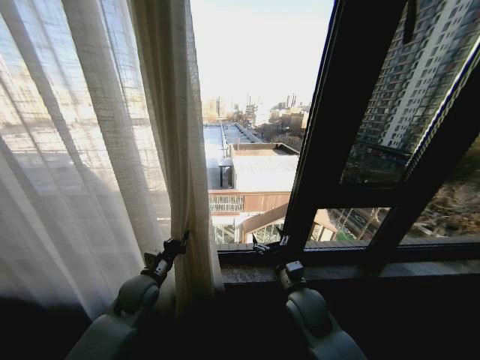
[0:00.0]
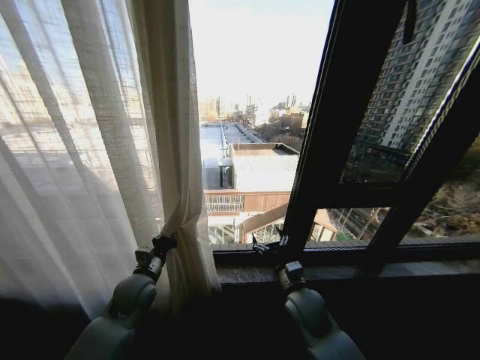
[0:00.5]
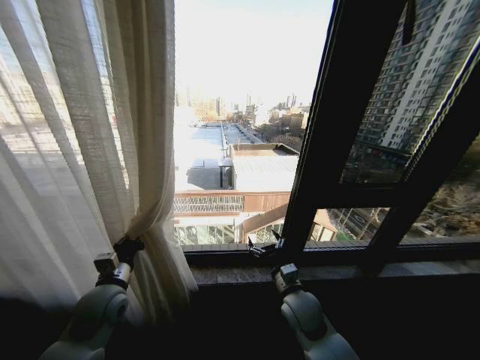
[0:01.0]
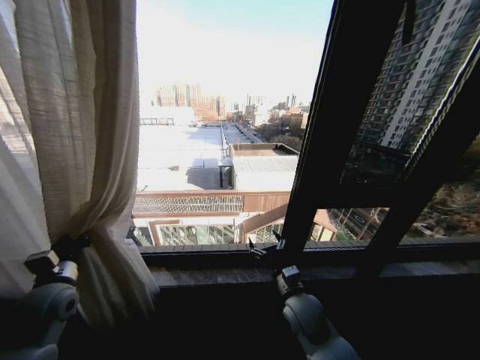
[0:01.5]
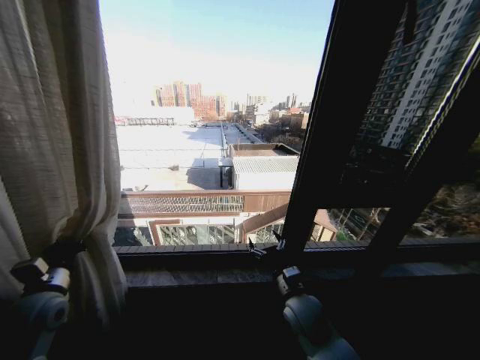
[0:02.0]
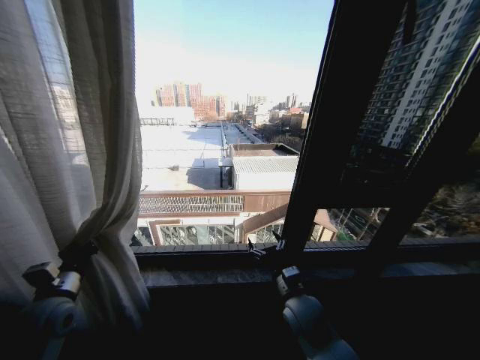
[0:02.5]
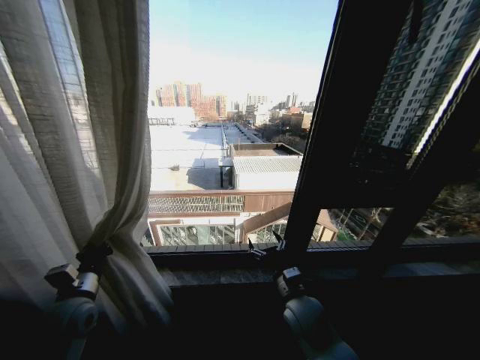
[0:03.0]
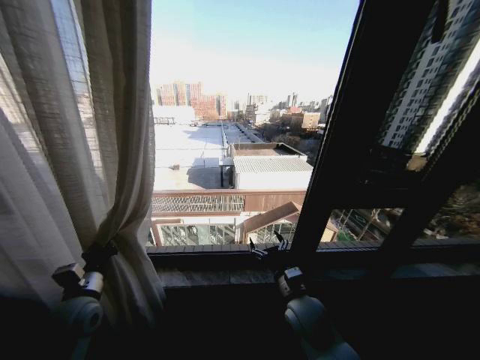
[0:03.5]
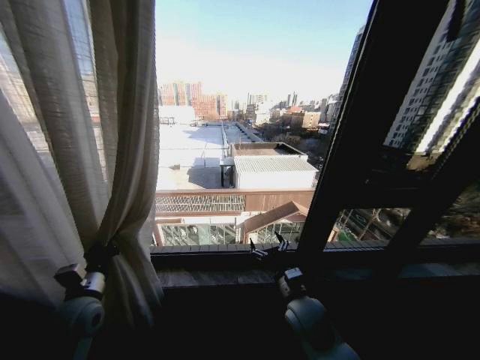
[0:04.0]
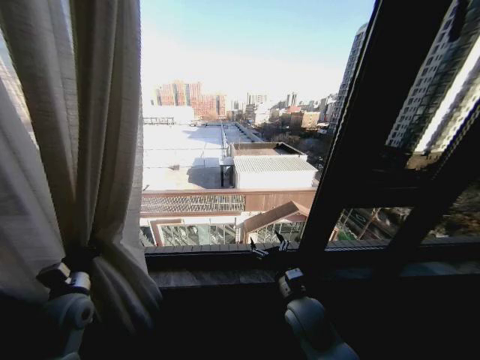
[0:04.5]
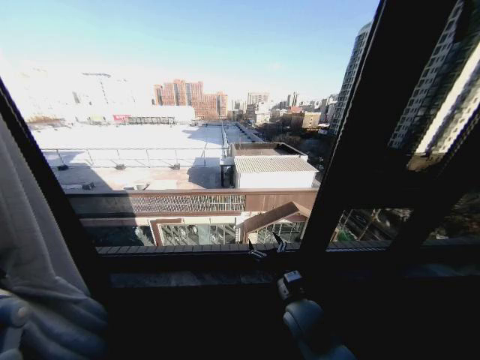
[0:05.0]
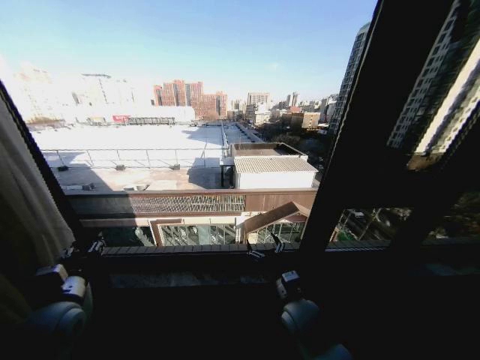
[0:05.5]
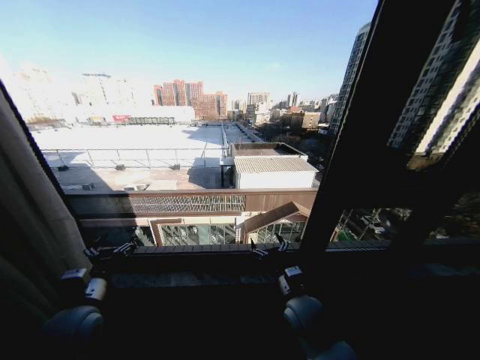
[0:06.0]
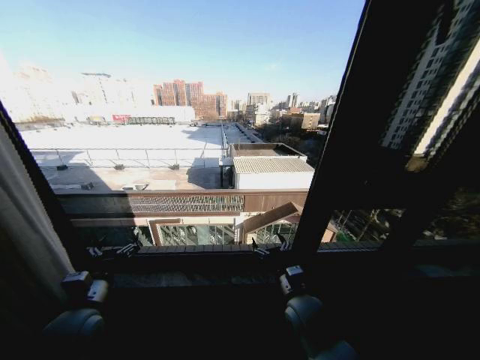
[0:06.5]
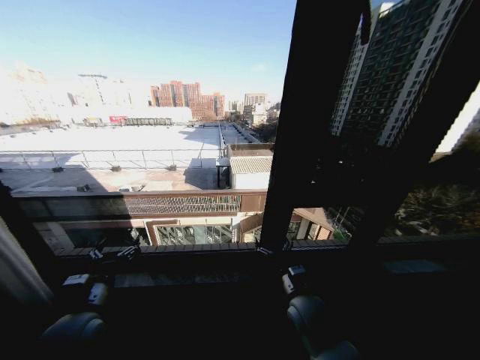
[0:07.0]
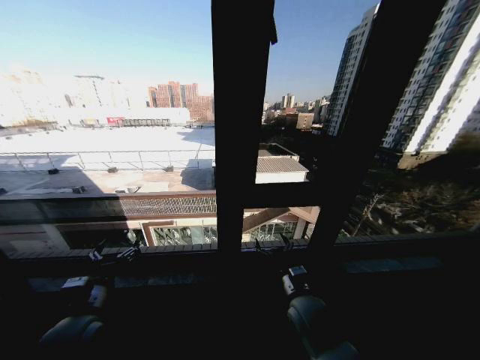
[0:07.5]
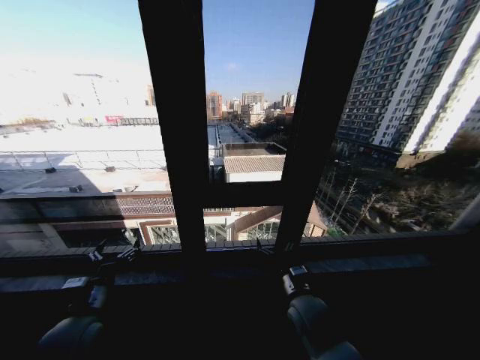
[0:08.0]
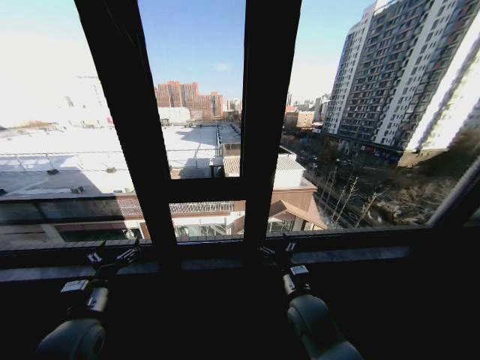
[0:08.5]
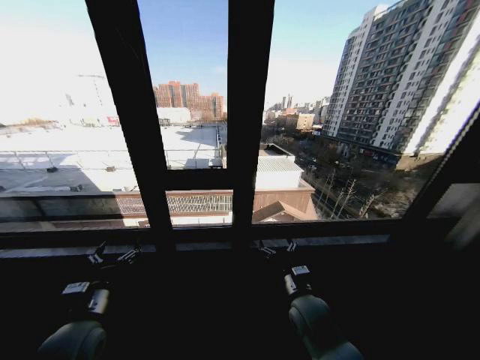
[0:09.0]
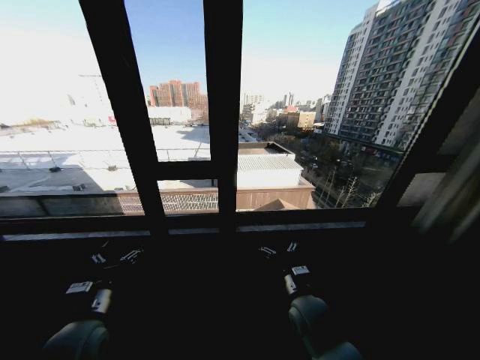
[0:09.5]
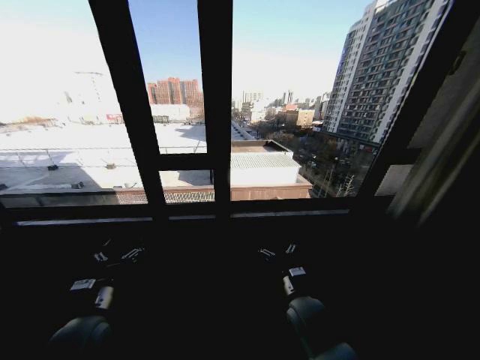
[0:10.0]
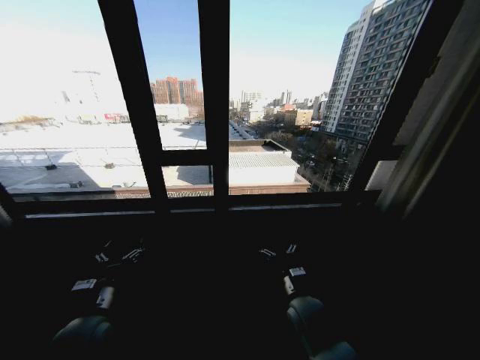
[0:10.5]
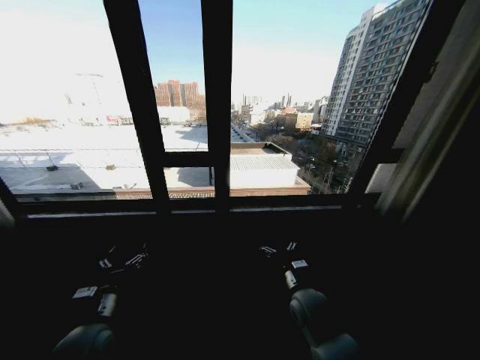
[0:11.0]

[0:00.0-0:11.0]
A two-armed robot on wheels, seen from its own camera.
Task of the whole recording: Open the curtains by pulling them apart, changing their state from closed to fully open.
0:00.0 to 0:02.0: The left gripper heads to the left, backward and upward, covering roughly 20 cm.
0:02.0 to 0:03.5: The left gripper moves to the right, some 5 cm.
0:03.5 to 0:05.5: The left gripper reaches approximately 15 cm to the left, then returns, and opens up.
0:05.5 to 0:07.5: The left gripper ends up about 5 cm from where it was, and opens up.
